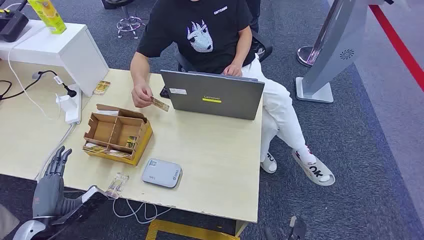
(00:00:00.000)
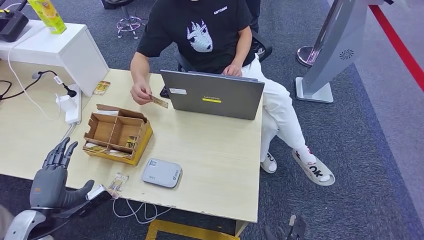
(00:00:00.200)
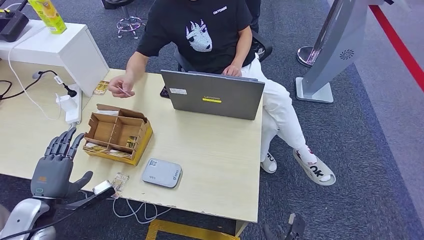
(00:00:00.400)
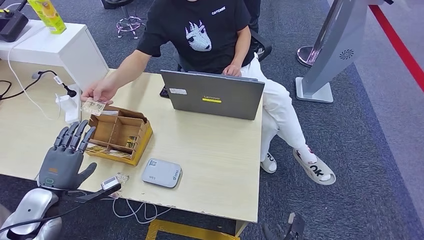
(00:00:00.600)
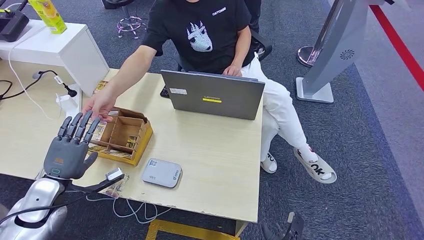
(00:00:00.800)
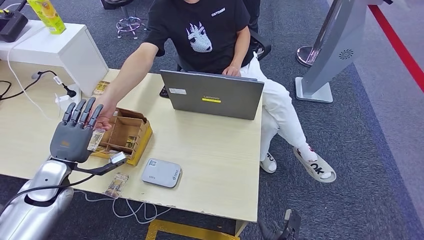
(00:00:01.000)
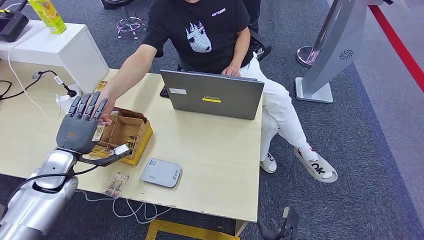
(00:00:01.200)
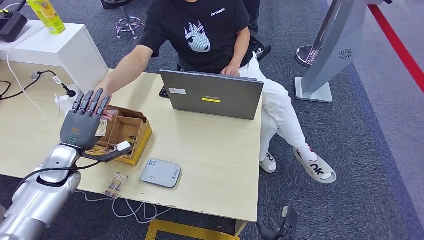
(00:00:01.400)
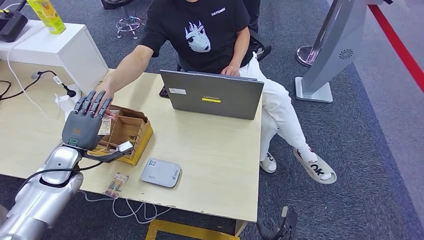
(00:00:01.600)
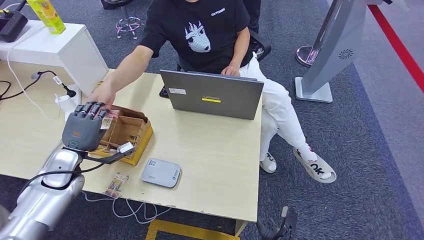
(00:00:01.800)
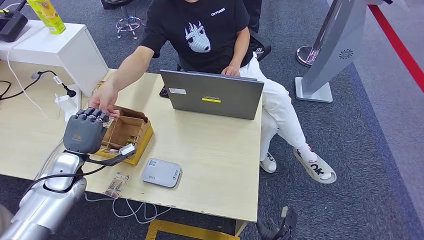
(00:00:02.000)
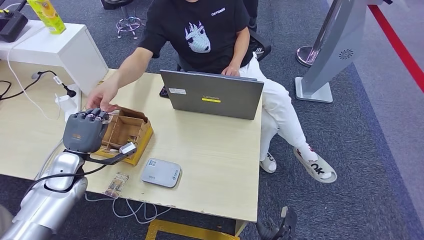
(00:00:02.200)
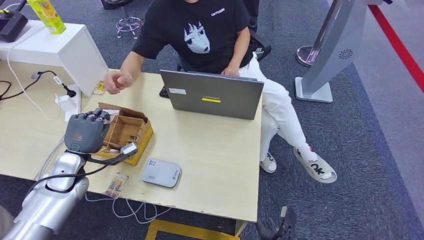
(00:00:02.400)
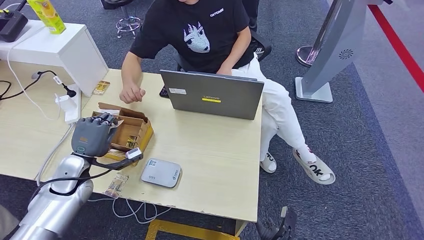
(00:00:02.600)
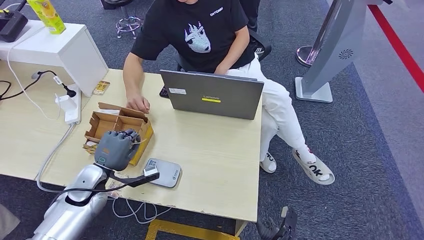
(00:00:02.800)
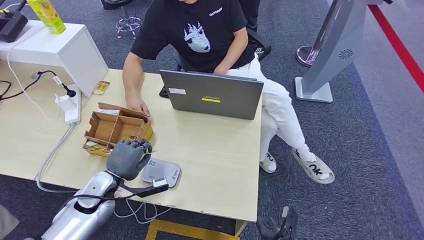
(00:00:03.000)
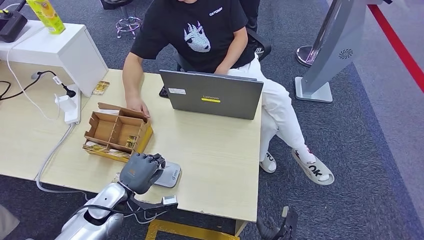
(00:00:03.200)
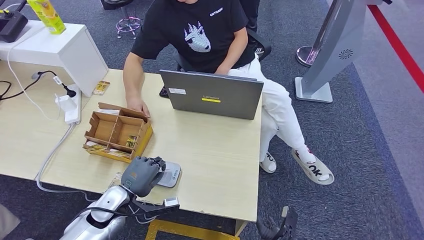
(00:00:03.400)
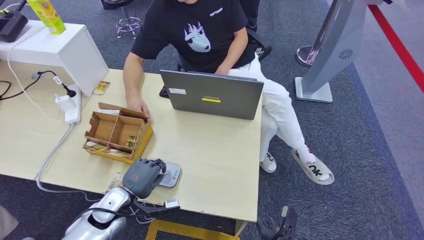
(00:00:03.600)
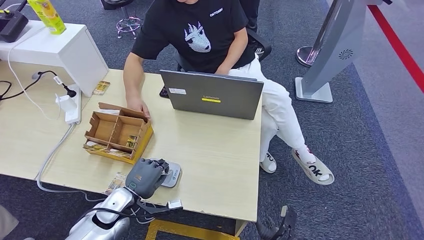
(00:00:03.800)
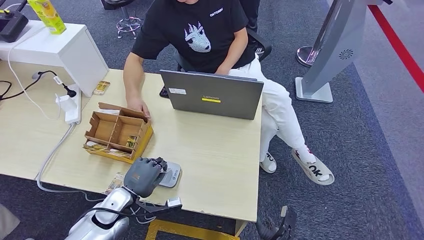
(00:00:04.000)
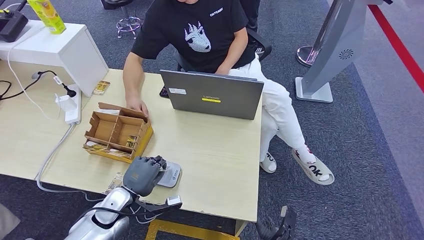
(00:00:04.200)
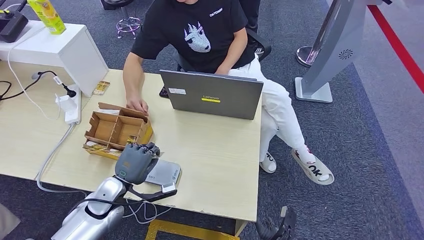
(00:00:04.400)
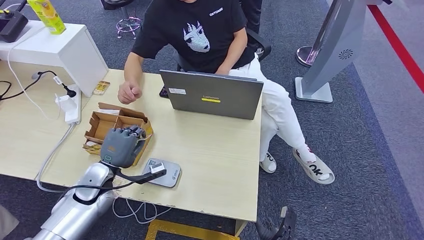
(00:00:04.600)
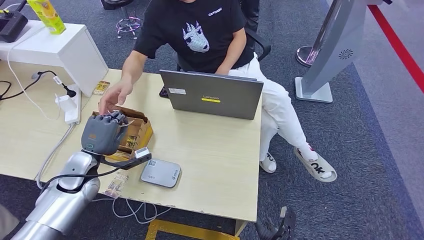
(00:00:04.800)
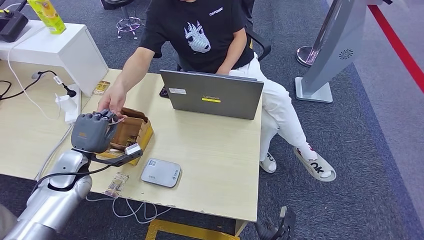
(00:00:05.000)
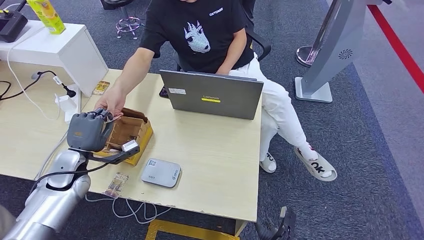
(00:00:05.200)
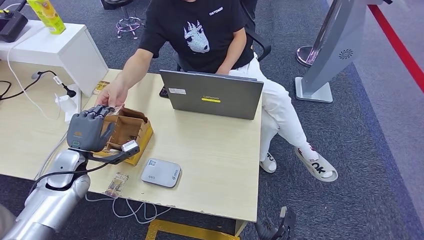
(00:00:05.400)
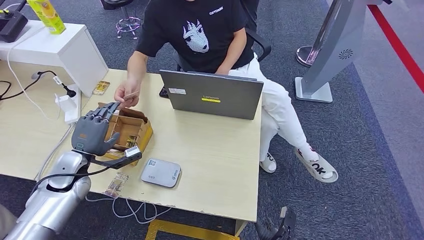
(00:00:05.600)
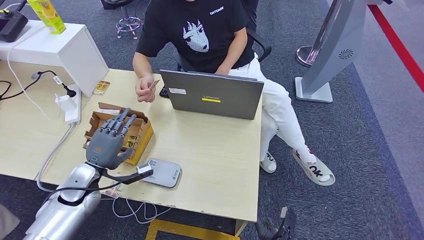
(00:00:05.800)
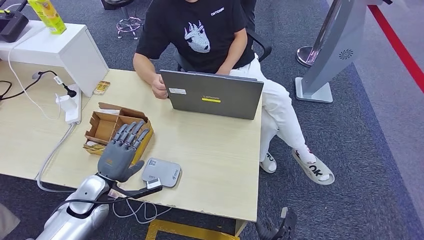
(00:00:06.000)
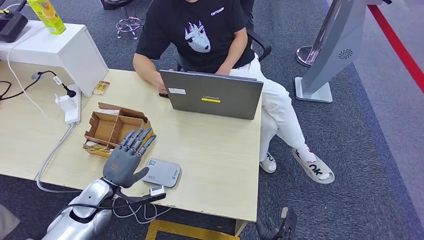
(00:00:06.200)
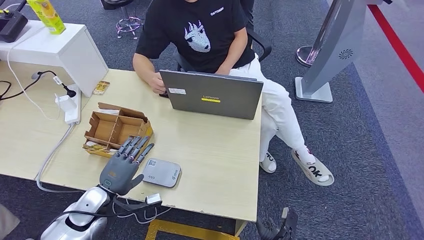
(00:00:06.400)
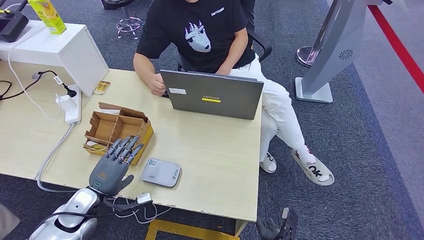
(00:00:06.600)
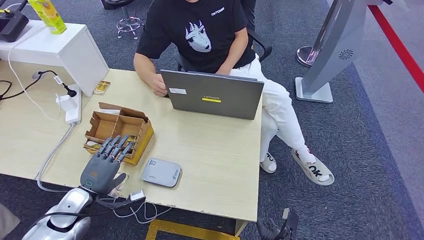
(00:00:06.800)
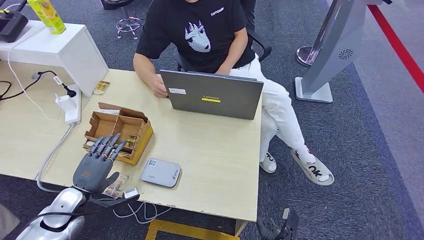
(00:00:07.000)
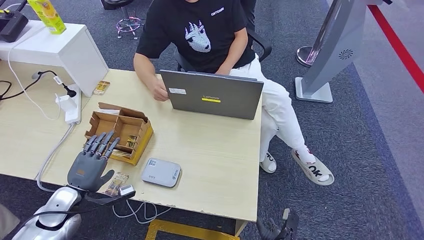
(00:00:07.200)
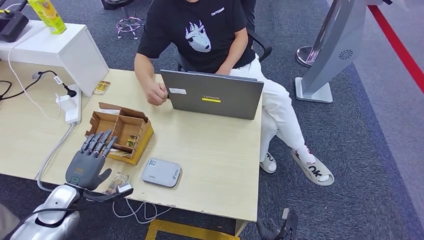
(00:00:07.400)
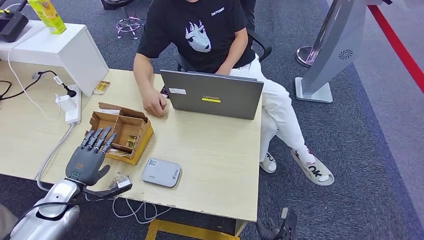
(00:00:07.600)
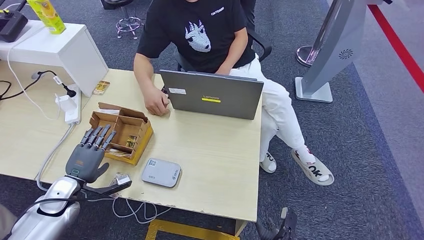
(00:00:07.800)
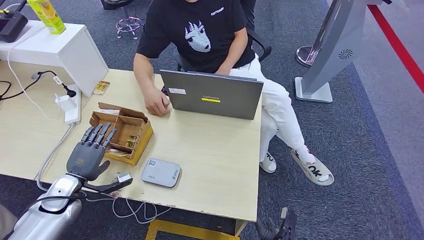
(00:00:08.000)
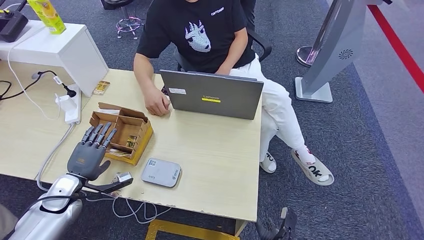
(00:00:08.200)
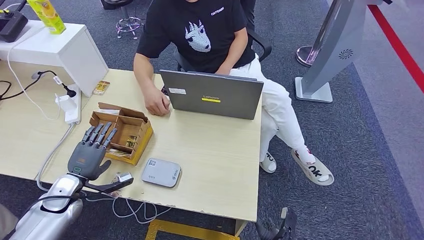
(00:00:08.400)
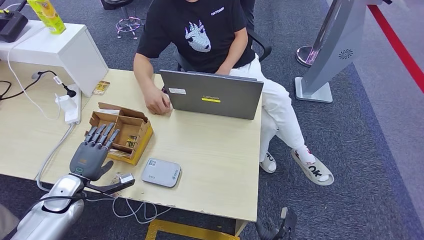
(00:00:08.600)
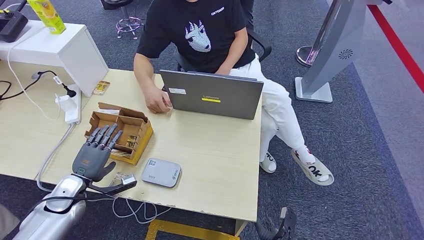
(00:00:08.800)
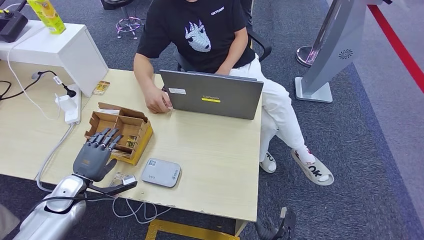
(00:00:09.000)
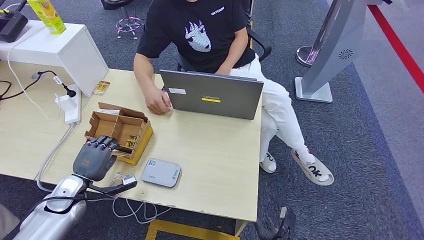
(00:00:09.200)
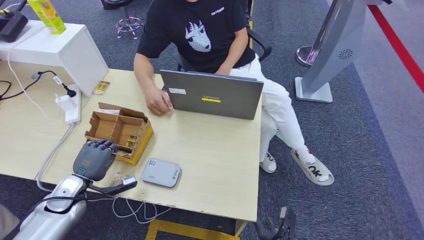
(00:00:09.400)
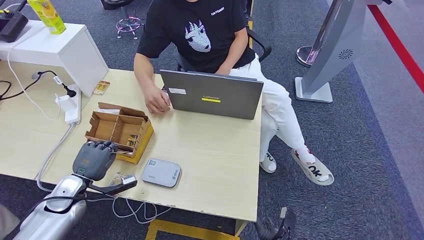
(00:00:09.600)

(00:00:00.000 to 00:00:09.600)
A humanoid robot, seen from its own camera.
Step, 00:00:00.000 - 00:00:01.600: Take the ID card from the person's hand.
Step, 00:00:01.800 - 00:00:04.600: Place the ID card on the card reader.
Step, 00:00:05.000 - 00:00:06.400: Hand the ID card to the person.
00:00:01.600 - 00:00:03.200: The left hand moves to the right, downward and backward, approximately 15 cm.
00:00:03.200 - 00:00:04.800: The left hand travels to the left, upward and forward by about 10 cm.
00:00:04.800 - 00:00:06.400: The left hand moves backward and downward, roughly 10 cm.
00:00:06.400 - 00:00:08.000: The left hand is displaced to the left by about 10 cm.
00:00:08.000 - 00:00:09.600: Neither hand changes place.

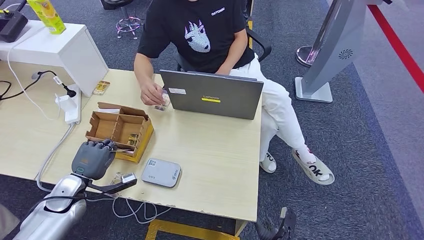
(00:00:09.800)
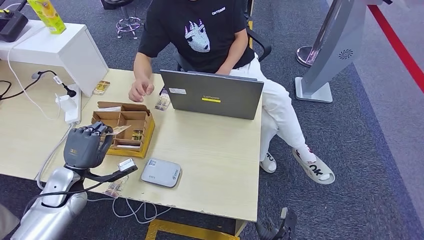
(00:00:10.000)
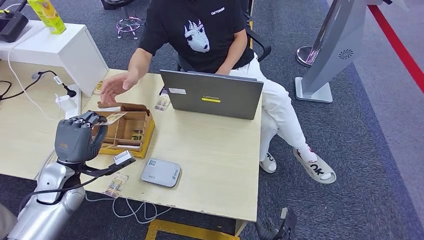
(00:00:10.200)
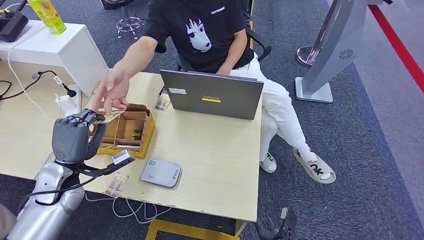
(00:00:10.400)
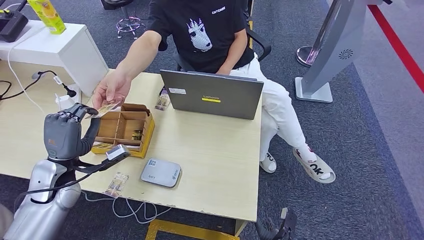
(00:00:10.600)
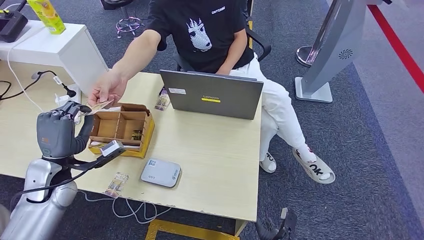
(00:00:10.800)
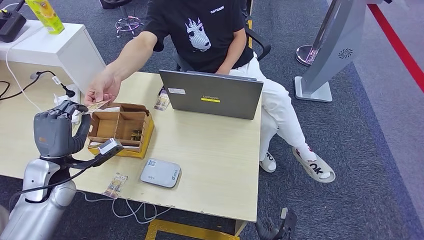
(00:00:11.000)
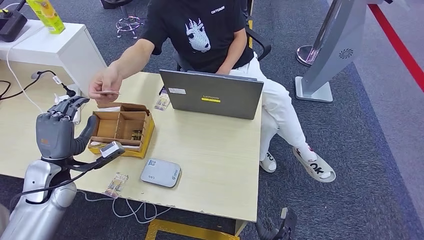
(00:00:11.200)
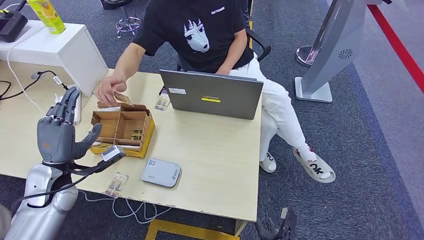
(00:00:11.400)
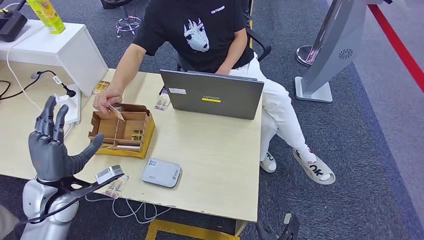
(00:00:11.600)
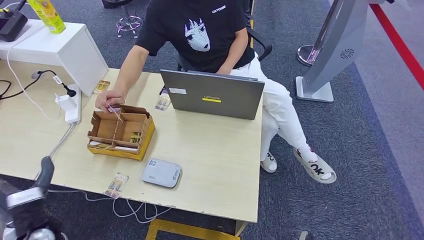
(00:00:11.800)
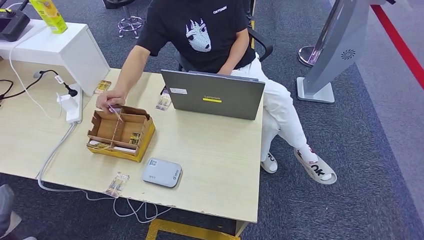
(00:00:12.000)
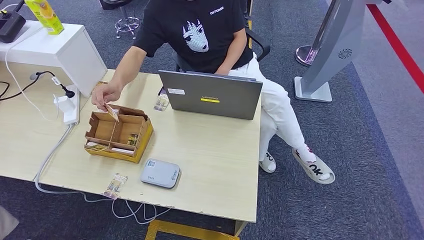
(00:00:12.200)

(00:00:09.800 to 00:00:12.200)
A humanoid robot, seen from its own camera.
Step, 00:00:10.200 - 00:00:12.200: Hand the room key to the person.
00:00:09.800 - 00:00:11.000: The left hand is displaced upward by approximately 10 cm.
00:00:11.000 - 00:00:12.200: The right hand goes approximately 15 cm backward and to the right, while the left hand shifts roughly 30 cm backward and downward.
